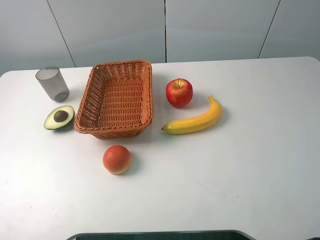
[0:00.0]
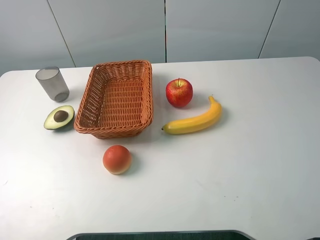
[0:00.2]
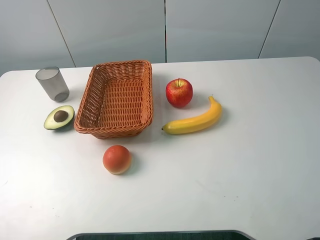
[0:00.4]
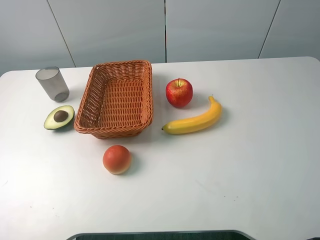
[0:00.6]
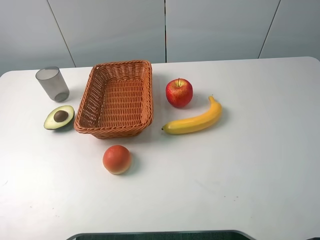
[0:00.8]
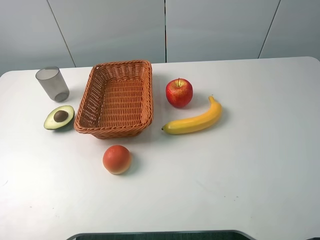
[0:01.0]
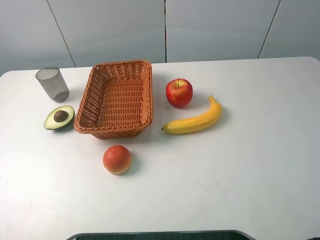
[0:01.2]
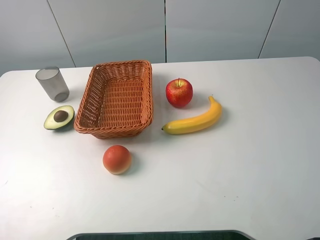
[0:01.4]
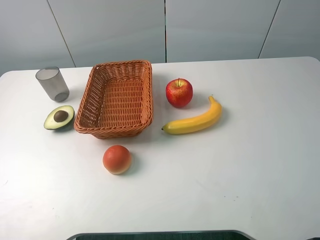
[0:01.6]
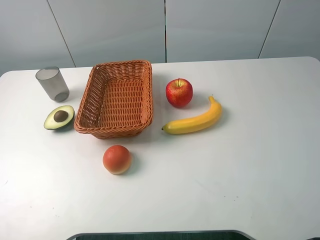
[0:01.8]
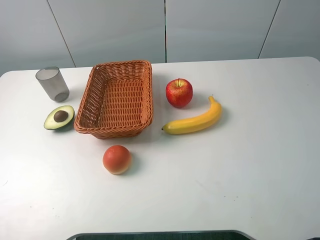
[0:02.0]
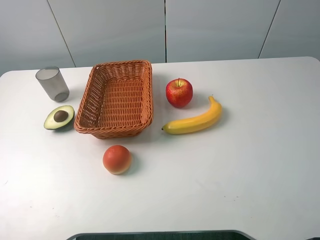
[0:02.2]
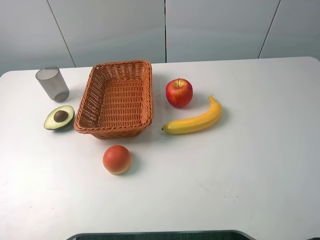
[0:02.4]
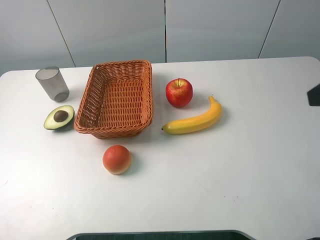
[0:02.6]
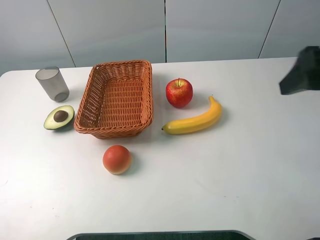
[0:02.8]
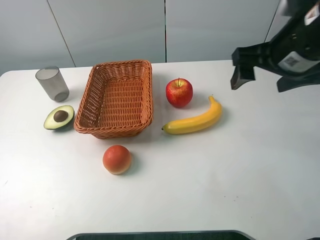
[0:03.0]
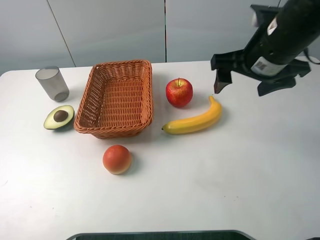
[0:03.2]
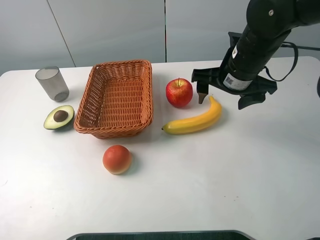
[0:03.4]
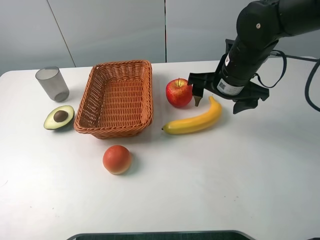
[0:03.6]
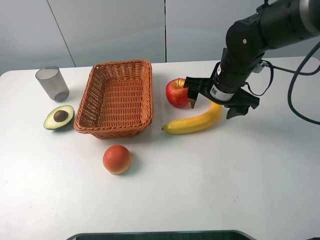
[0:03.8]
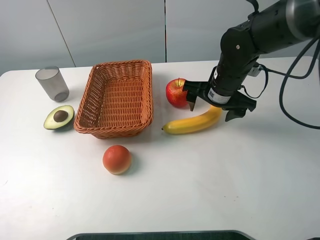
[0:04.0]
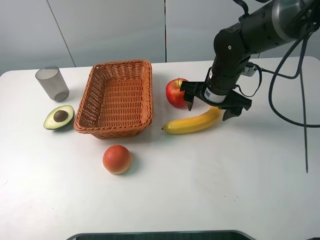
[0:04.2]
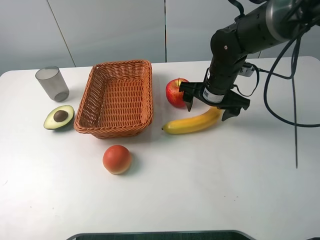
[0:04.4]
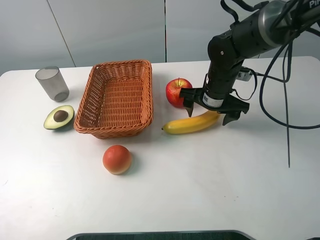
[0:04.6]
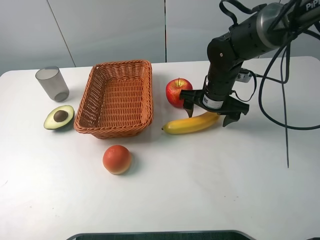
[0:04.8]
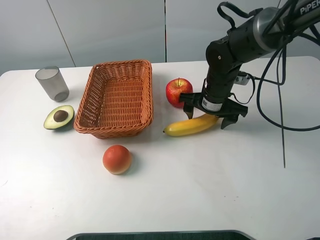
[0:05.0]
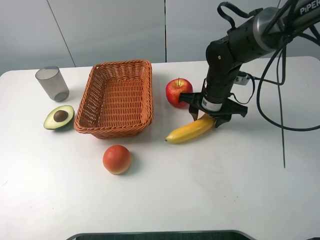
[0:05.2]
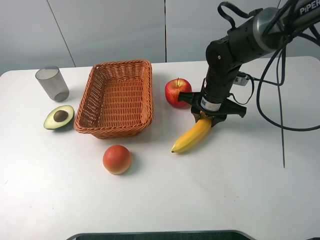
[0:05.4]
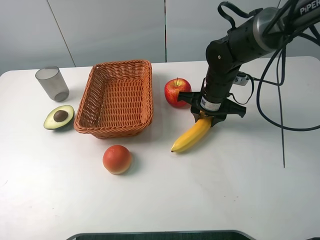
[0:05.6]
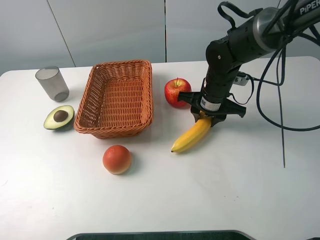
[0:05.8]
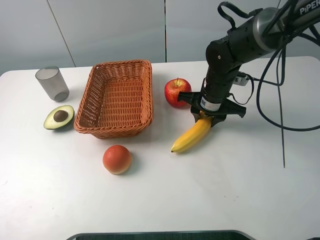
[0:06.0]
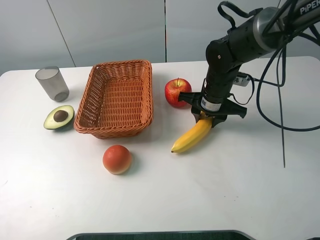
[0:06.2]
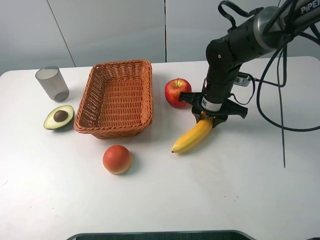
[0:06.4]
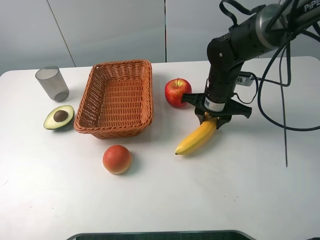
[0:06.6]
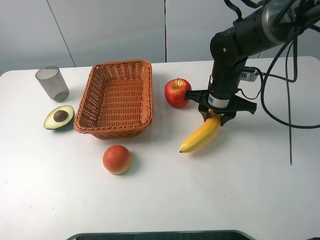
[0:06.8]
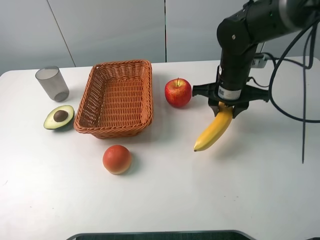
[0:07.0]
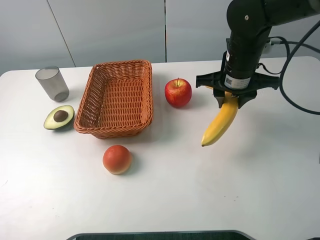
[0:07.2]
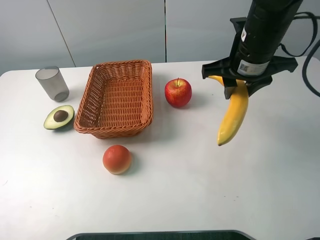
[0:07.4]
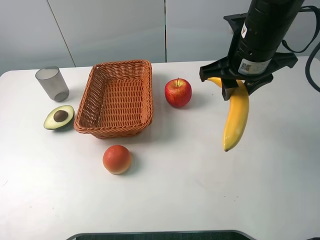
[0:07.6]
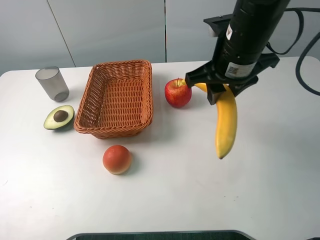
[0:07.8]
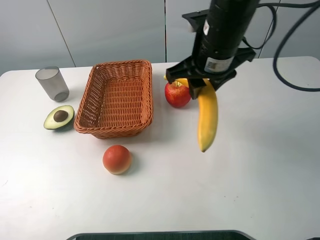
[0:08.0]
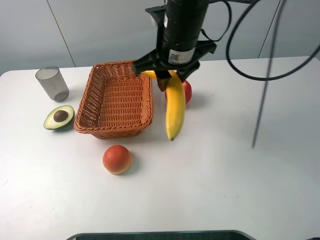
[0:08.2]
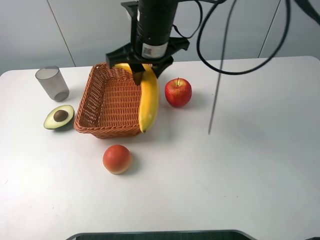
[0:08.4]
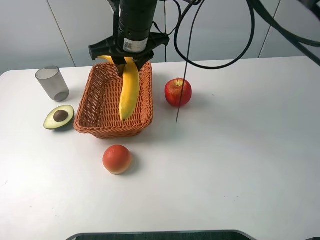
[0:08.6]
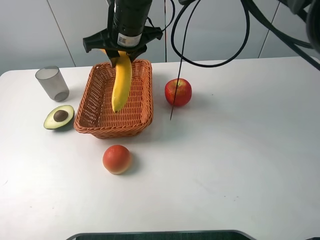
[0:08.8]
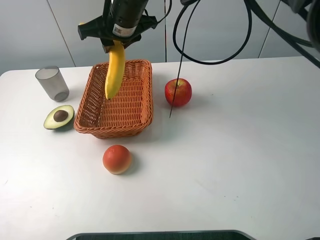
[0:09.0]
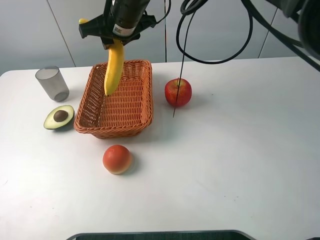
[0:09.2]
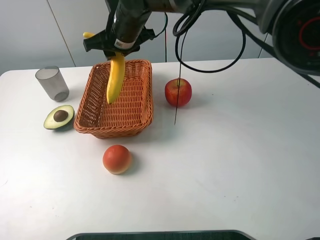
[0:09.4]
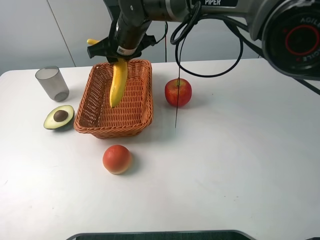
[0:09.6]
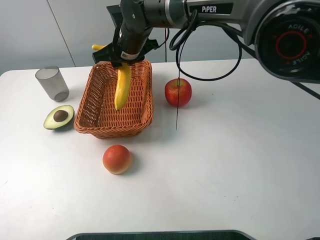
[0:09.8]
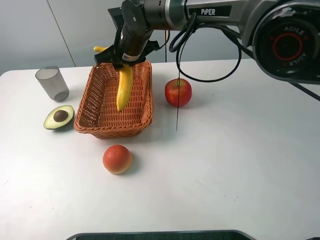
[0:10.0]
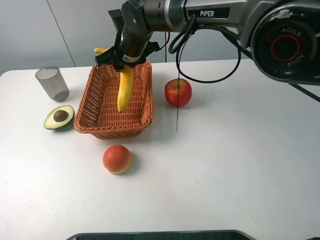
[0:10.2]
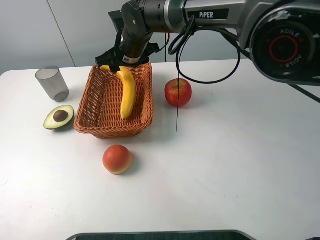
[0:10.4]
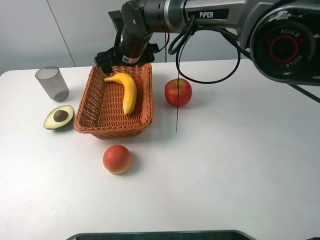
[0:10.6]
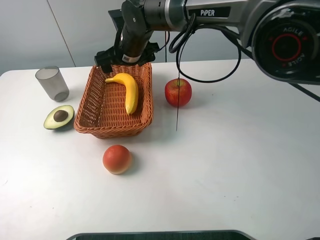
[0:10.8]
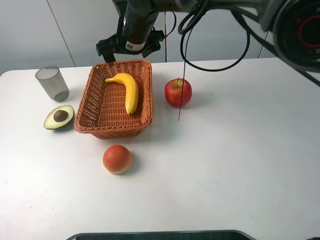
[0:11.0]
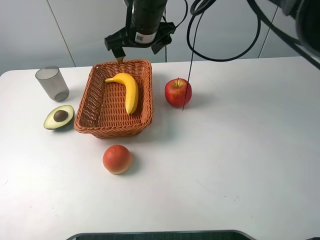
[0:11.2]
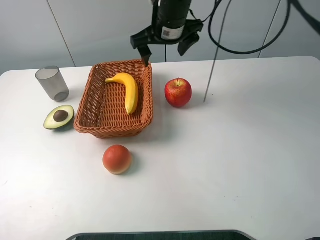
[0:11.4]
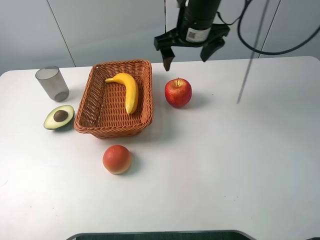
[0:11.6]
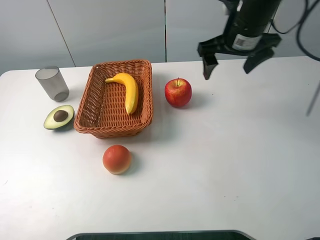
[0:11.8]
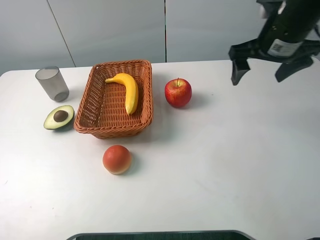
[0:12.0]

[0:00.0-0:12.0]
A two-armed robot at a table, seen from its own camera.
0:00.0 to 0:01.6: Neither gripper changes place.
0:01.6 to 0:03.0: The right gripper goes approximately 25 cm forward and to the left.
0:03.0 to 0:04.4: The right gripper moves downward, forward and to the left, about 20 cm.
0:04.4 to 0:06.0: The right gripper closes.
0:06.0 to 0:07.6: The right gripper heads upward, covering some 15 cm.
0:07.6 to 0:09.0: The right gripper moves to the left and forward, some 20 cm.
0:09.0 to 0:10.4: The right gripper heads downward, covering roughly 10 cm, and opens.
0:10.4 to 0:12.0: The right gripper heads to the right, covering approximately 30 cm, and opens its fingers.

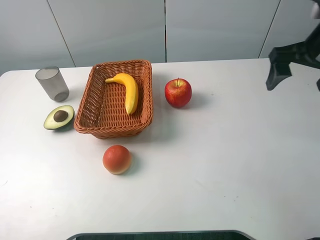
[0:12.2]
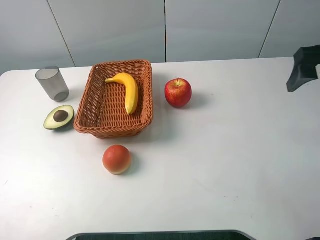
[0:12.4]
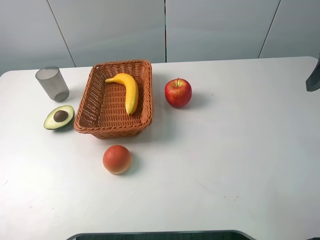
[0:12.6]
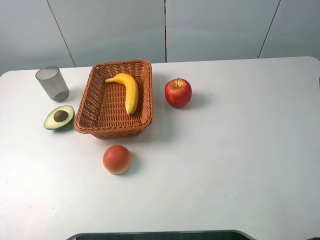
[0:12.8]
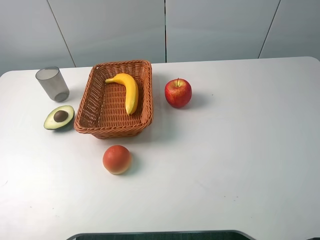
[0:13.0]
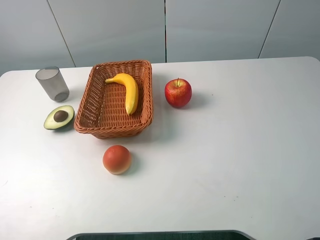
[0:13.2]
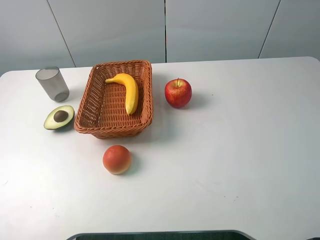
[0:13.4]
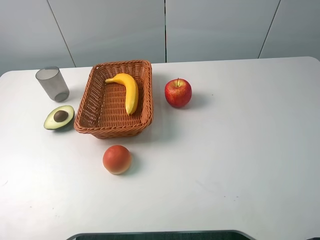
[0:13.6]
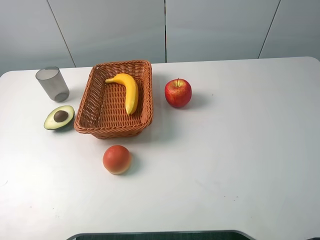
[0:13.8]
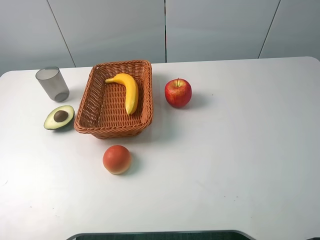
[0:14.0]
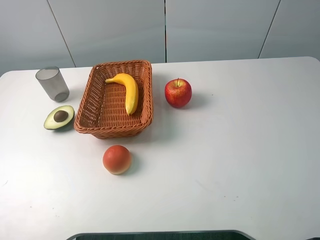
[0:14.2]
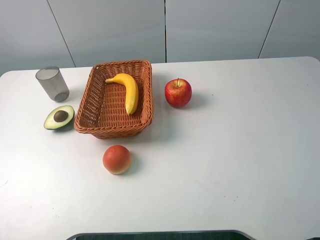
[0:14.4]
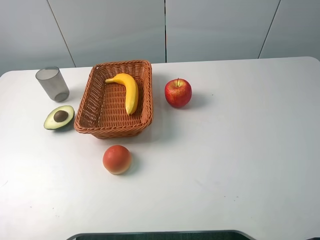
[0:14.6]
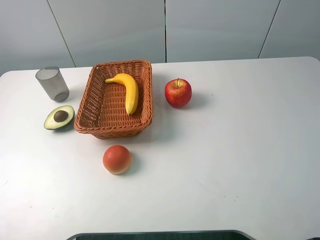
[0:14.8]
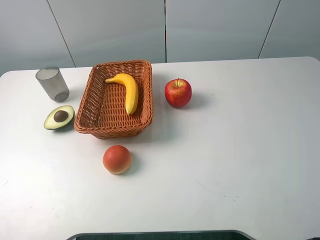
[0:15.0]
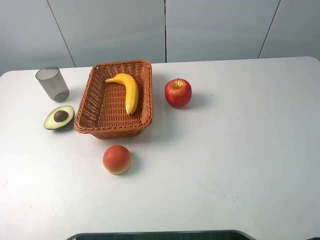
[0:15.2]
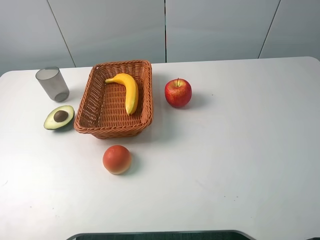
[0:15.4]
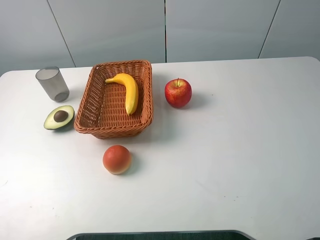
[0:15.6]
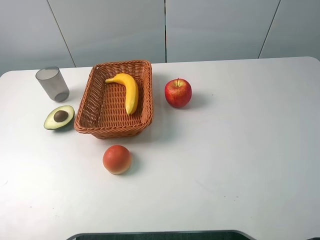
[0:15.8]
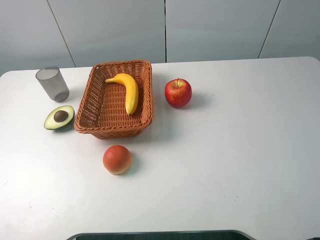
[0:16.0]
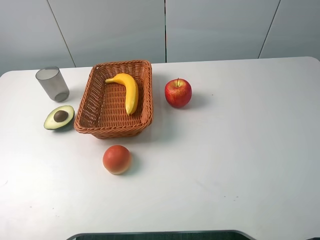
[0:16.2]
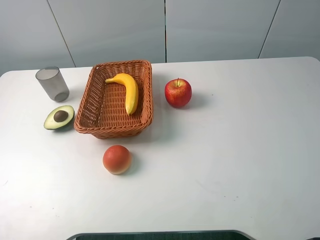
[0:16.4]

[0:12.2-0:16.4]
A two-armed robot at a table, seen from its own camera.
0:12.2 to 0:13.6: The right gripper shifts roughly 25 cm backward.
0:15.0 to 0:16.4: The two grippers keep their place.
